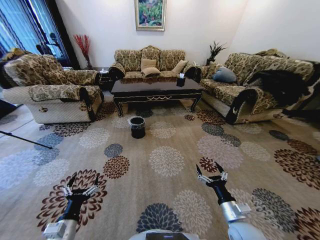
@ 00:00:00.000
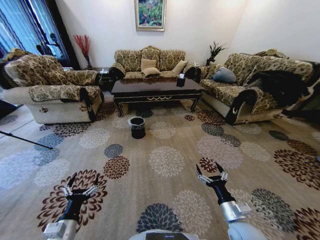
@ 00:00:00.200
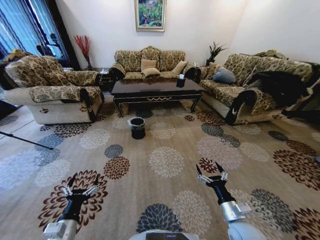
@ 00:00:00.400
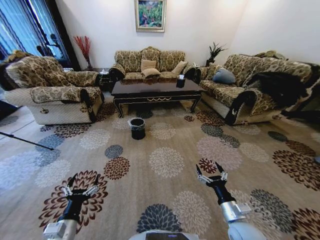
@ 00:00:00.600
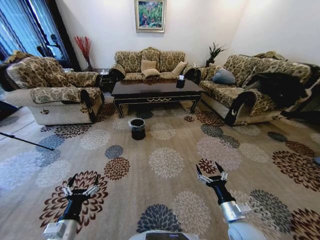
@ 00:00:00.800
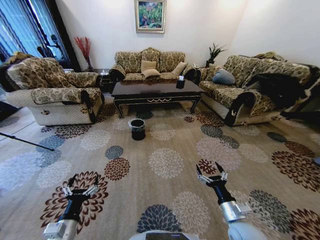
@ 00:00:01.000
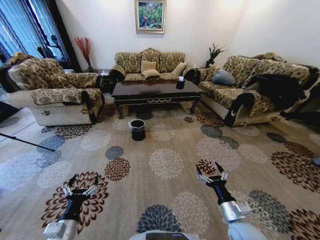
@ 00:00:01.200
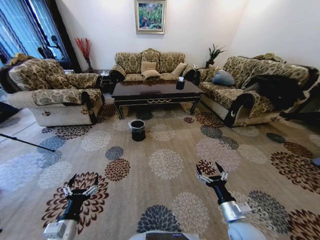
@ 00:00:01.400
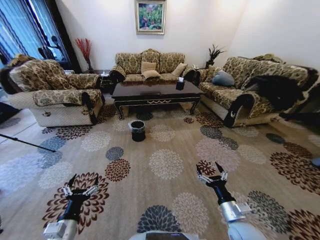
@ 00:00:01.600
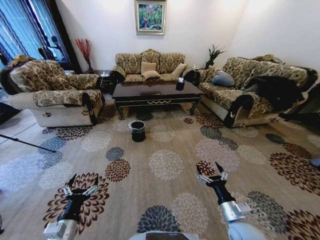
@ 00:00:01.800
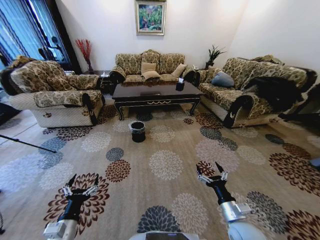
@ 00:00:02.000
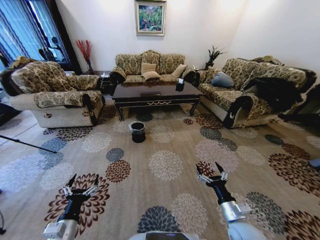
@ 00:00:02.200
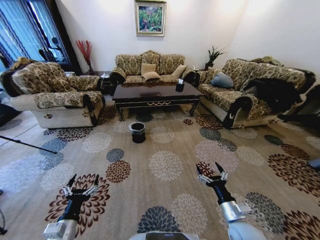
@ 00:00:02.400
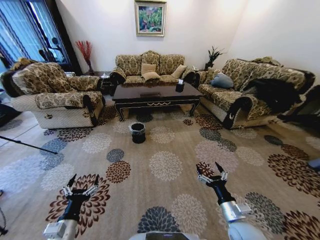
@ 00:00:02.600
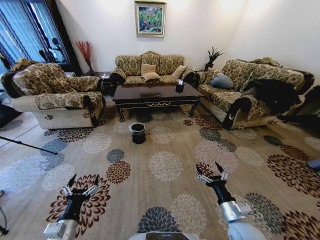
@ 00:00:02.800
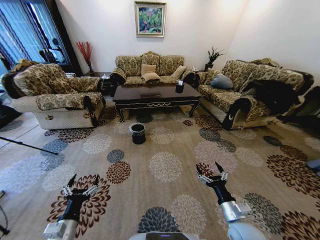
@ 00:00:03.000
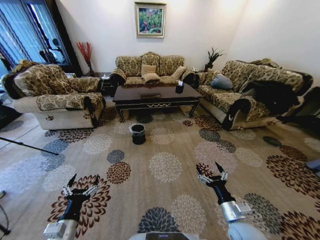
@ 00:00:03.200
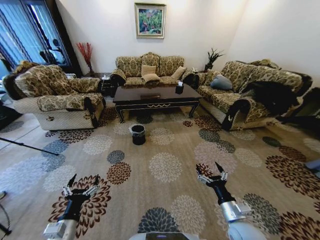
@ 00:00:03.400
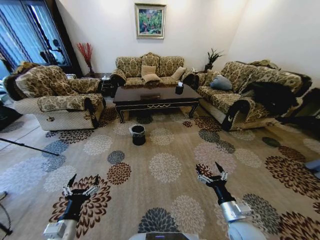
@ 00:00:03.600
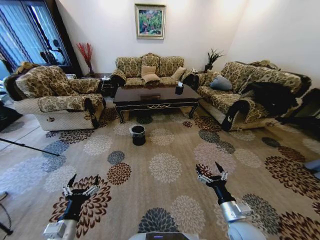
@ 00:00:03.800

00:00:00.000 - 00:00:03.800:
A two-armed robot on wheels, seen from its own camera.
Task of the whole recording: Move to the front of the table and pick up the trash from the floor, then place it into the trash bin.
00:00:02.600 - 00:00:03.800: Both grippers stay about where they are.
